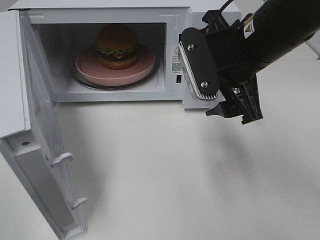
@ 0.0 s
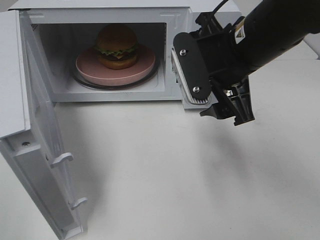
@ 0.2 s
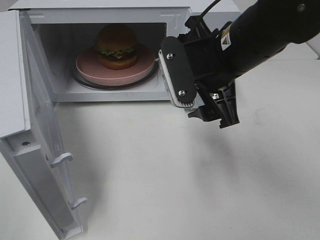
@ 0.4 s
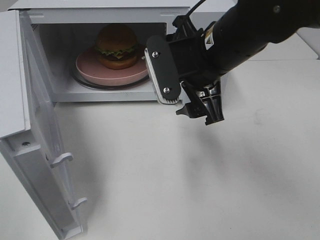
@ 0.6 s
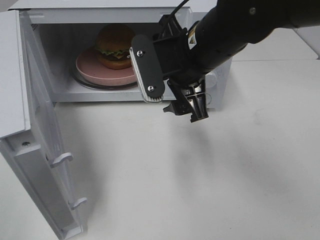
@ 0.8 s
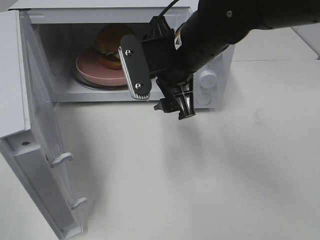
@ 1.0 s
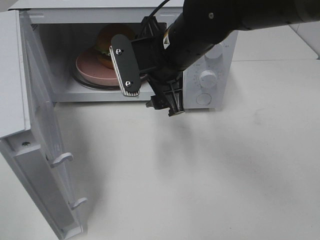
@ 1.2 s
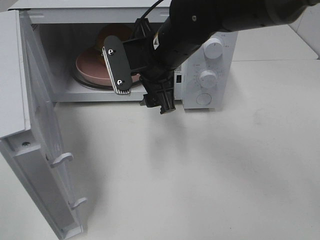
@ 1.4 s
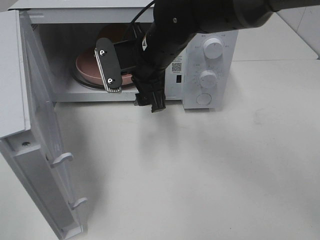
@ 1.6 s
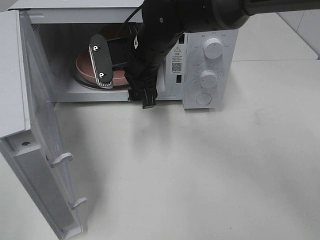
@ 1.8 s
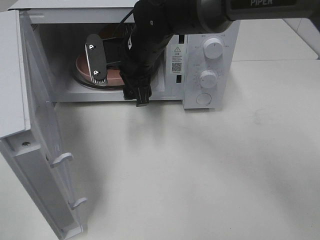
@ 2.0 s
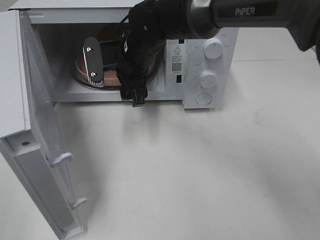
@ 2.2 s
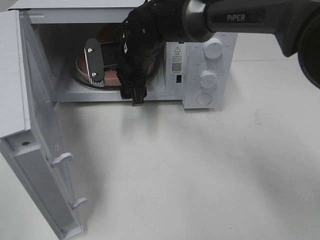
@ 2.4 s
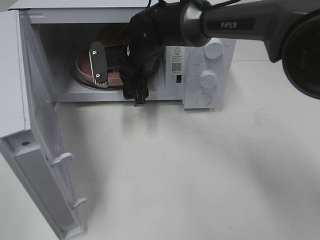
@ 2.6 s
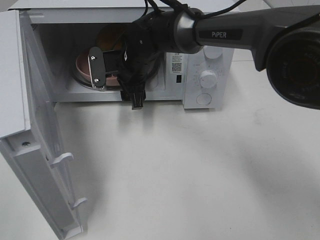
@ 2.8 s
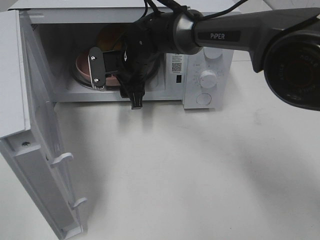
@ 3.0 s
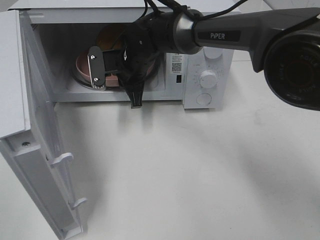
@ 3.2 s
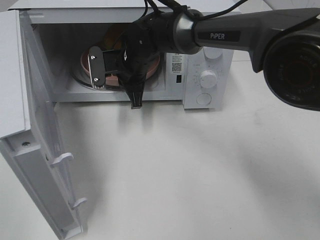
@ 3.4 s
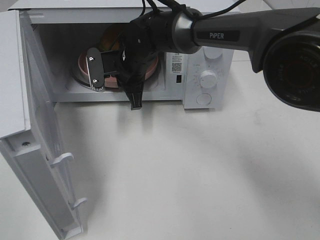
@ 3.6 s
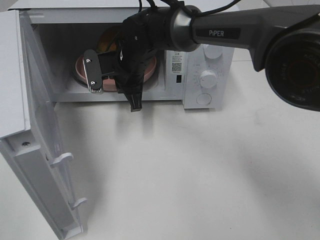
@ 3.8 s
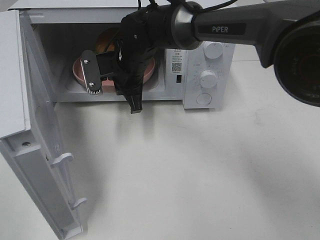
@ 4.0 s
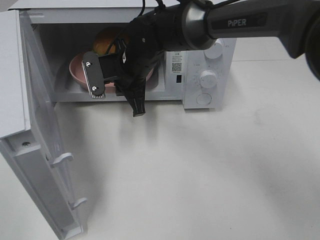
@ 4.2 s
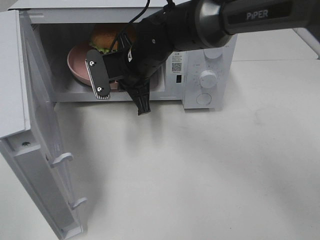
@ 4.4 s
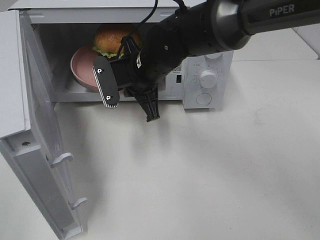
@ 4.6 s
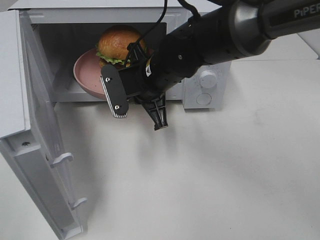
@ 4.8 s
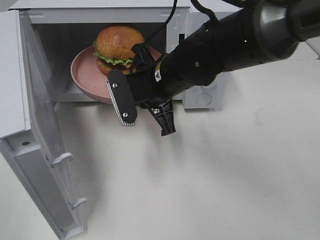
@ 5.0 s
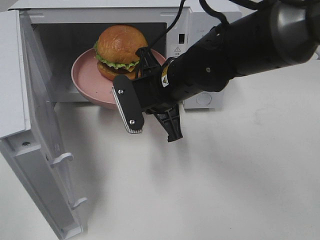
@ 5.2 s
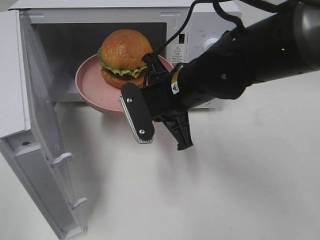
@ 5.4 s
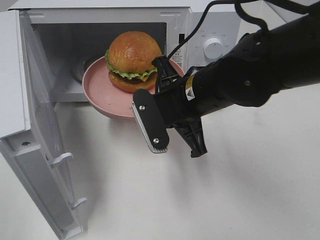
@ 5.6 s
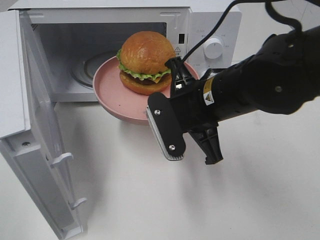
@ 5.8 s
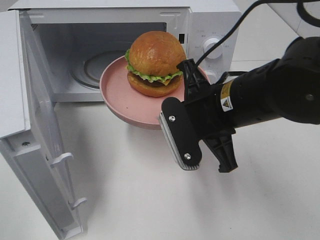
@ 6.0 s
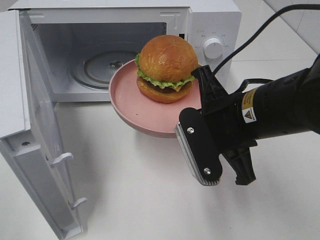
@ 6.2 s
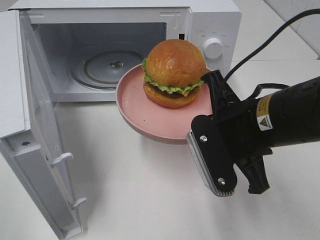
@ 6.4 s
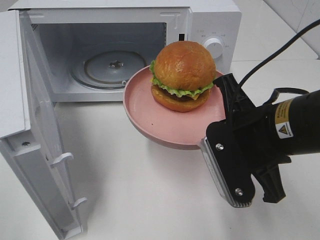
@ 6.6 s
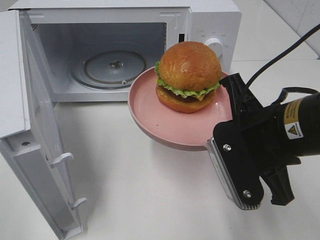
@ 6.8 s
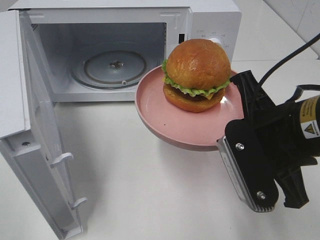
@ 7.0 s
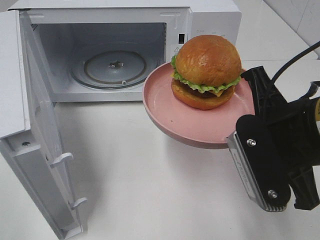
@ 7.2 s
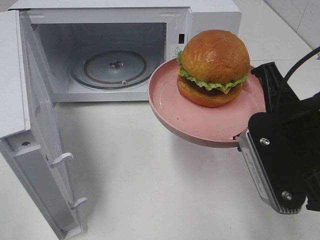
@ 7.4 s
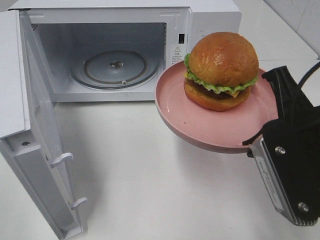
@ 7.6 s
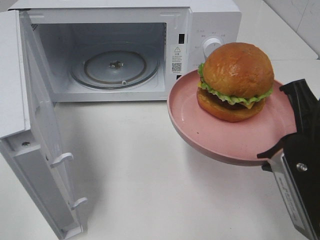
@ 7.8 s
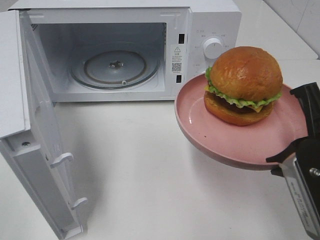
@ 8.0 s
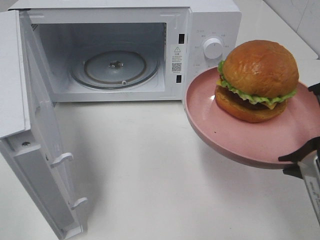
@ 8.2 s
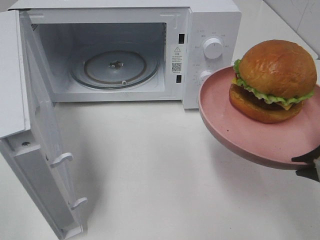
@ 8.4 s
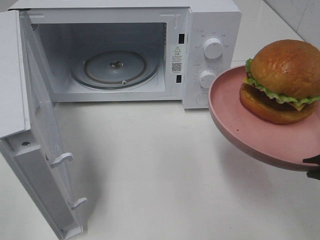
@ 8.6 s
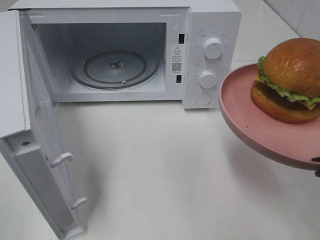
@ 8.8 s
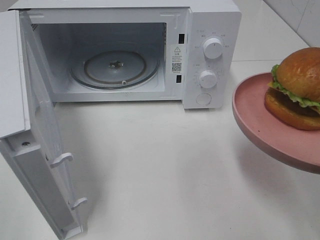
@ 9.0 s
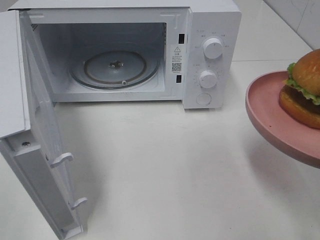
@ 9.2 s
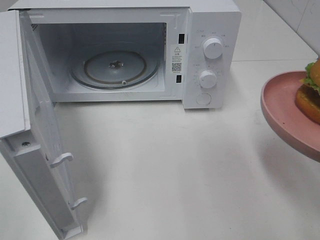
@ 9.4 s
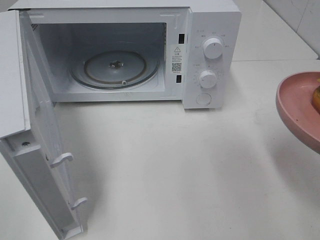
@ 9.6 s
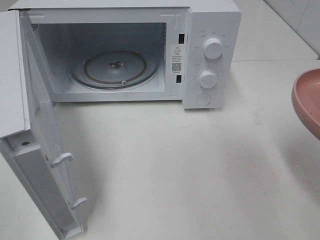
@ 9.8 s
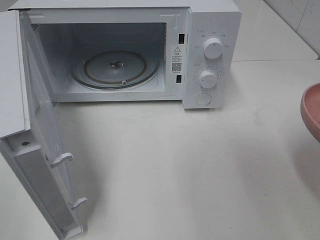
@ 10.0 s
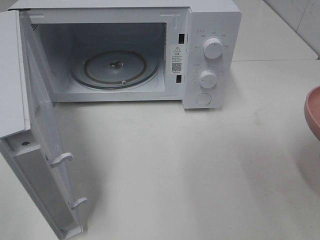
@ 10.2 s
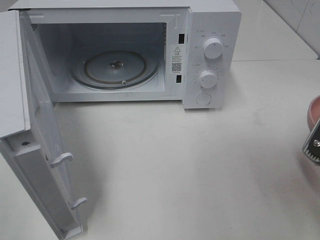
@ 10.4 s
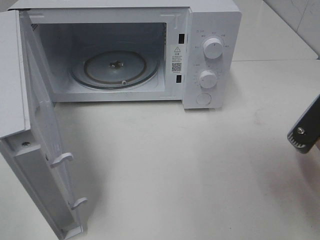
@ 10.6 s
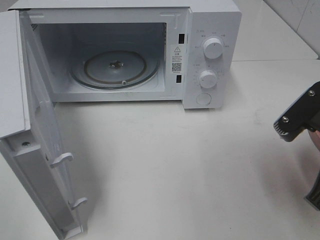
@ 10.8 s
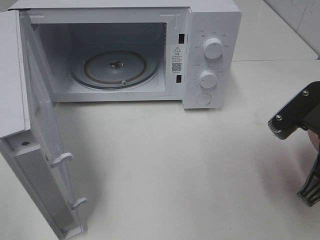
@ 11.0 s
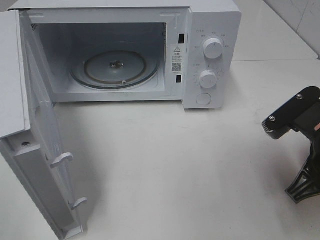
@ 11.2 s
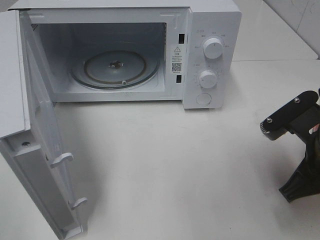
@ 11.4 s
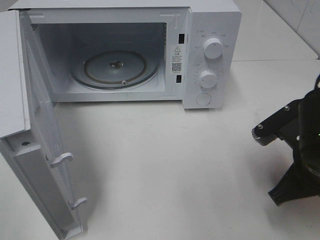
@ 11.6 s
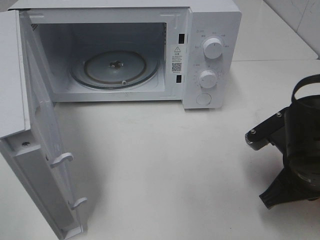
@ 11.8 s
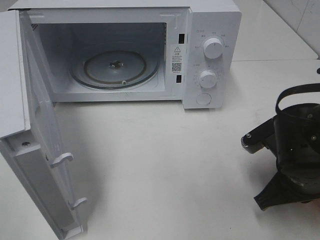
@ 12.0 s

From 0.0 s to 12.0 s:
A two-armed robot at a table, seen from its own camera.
Task of the whole recording: Heat the burger.
Step, from 0.0 s to 3.2 s: Right hand: grab the plate with the hamburger.
From 0.0 s to 1.6 s: The right gripper travels to the left, forward and downward by some 15 cm.
From 1.6 s to 3.0 s: The right gripper moves forward and downward, some 10 cm.
From 3.0 s to 4.4 s: The right gripper shifts roughly 5 cm backward, and closes.
From 4.4 s to 6.0 s: The right gripper heads backward and to the right, covering roughly 20 cm.
From 6.0 s to 7.6 s: The right gripper travels backward and to the right by about 10 cm.
From 7.6 s to 9.0 s: The right gripper goes roughly 5 cm to the right.
From 10.4 s to 12.0 s: The right gripper goes roughly 10 cm downward and forward.

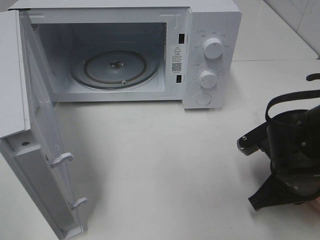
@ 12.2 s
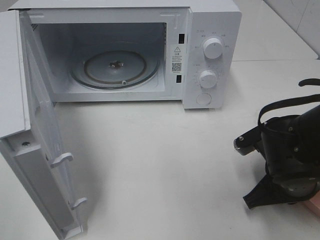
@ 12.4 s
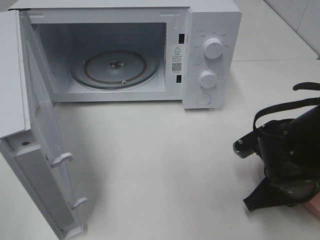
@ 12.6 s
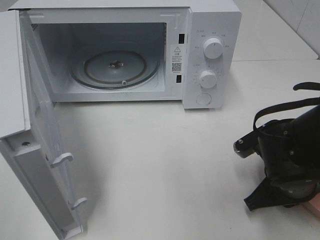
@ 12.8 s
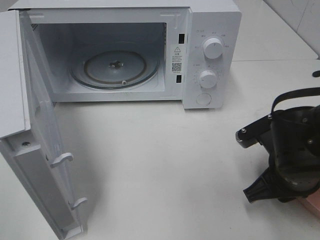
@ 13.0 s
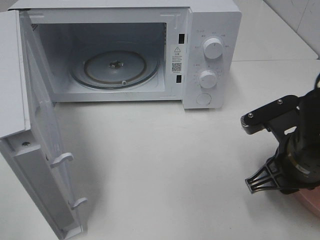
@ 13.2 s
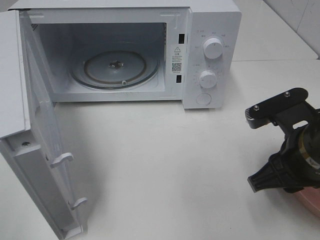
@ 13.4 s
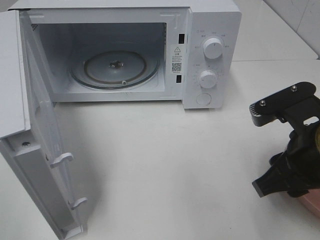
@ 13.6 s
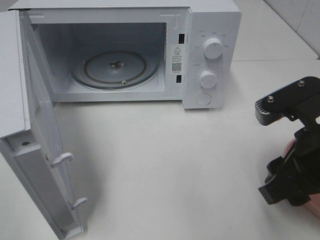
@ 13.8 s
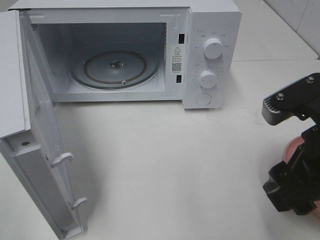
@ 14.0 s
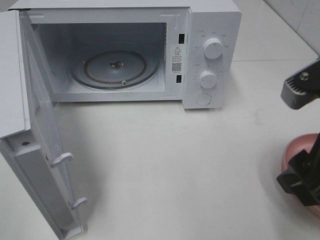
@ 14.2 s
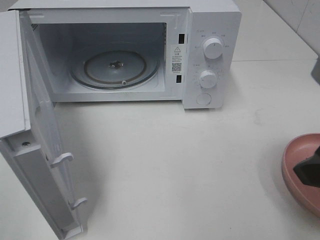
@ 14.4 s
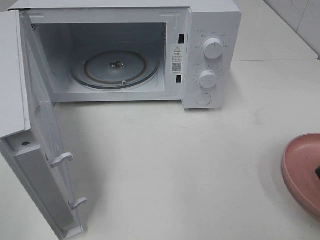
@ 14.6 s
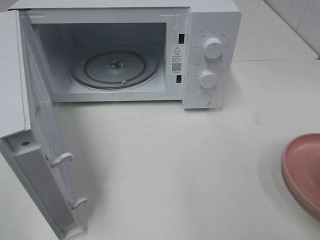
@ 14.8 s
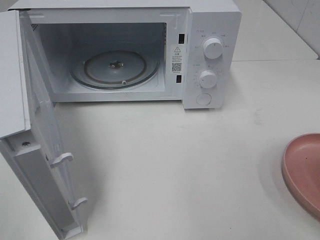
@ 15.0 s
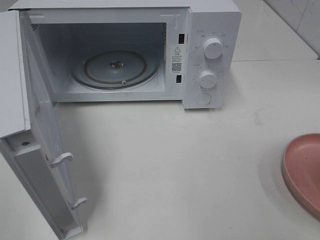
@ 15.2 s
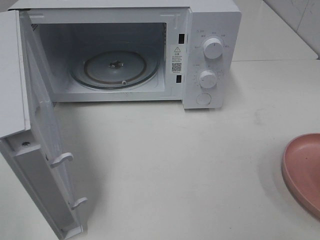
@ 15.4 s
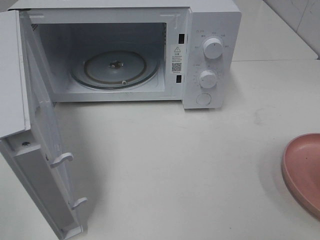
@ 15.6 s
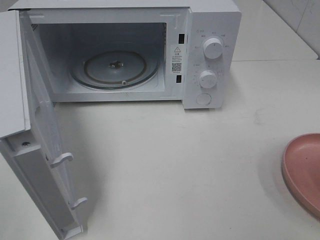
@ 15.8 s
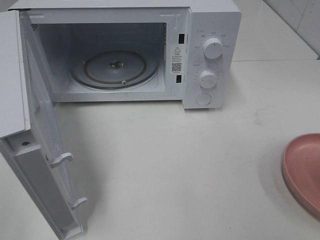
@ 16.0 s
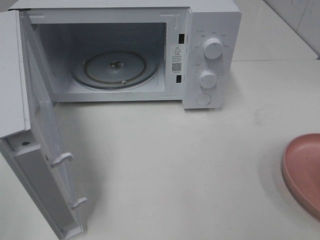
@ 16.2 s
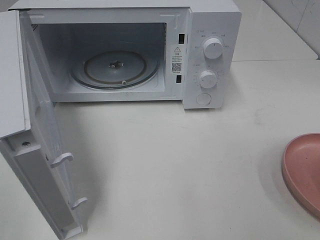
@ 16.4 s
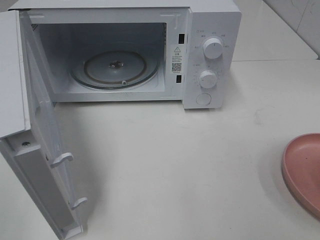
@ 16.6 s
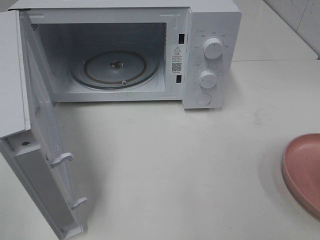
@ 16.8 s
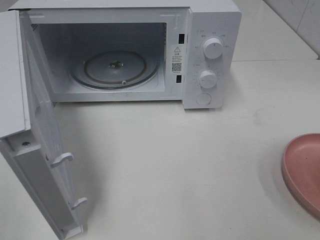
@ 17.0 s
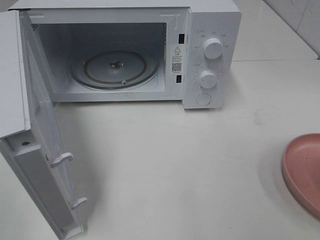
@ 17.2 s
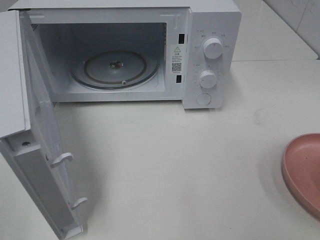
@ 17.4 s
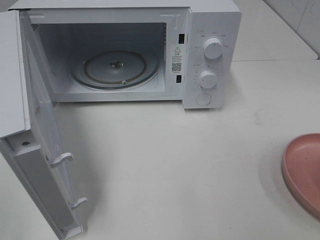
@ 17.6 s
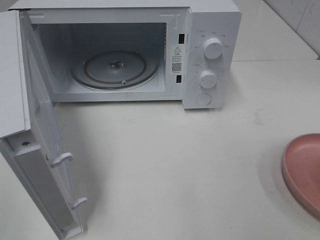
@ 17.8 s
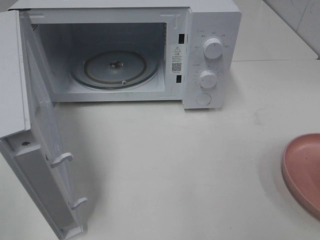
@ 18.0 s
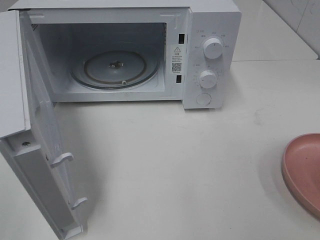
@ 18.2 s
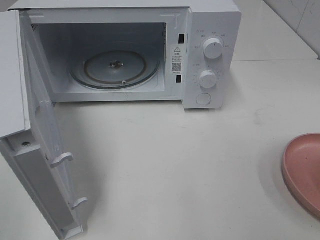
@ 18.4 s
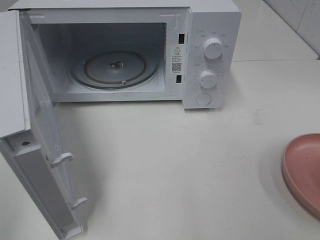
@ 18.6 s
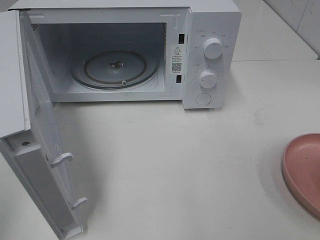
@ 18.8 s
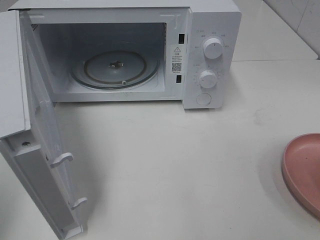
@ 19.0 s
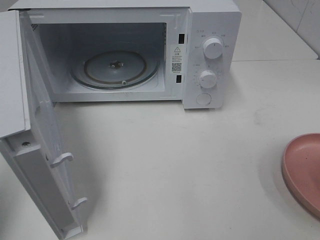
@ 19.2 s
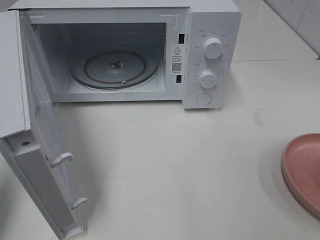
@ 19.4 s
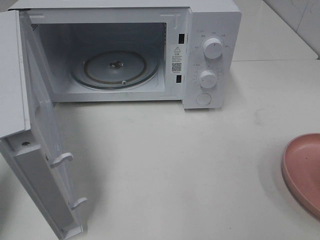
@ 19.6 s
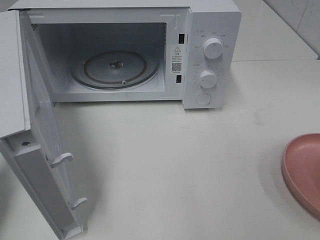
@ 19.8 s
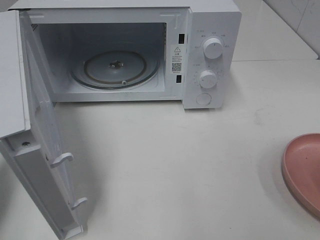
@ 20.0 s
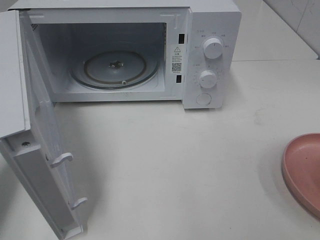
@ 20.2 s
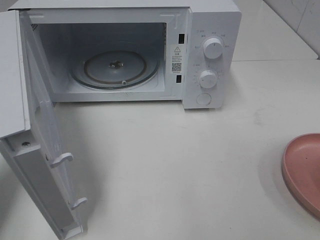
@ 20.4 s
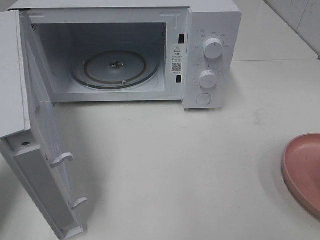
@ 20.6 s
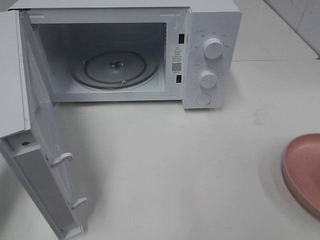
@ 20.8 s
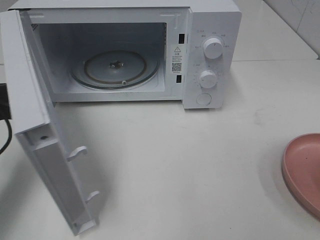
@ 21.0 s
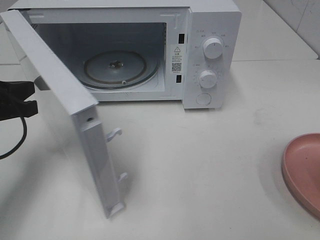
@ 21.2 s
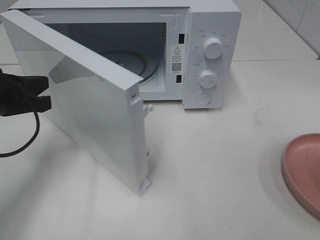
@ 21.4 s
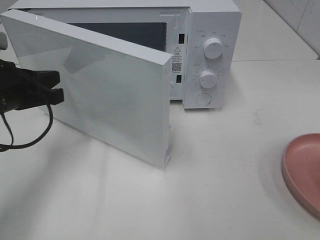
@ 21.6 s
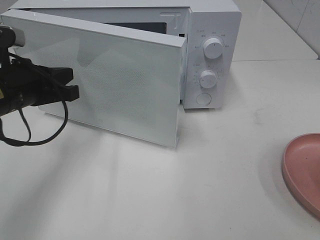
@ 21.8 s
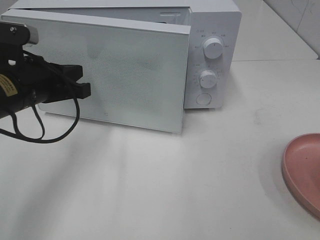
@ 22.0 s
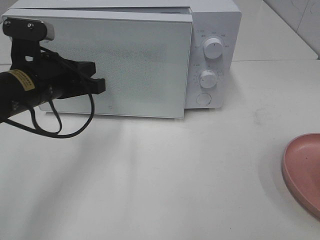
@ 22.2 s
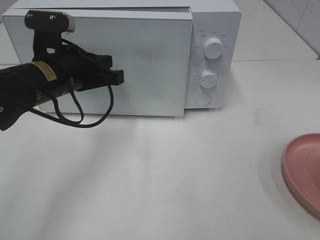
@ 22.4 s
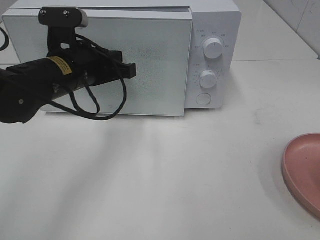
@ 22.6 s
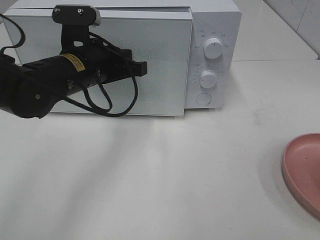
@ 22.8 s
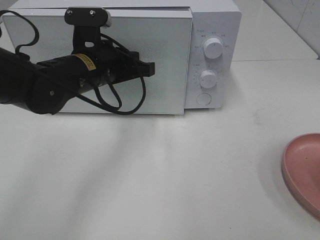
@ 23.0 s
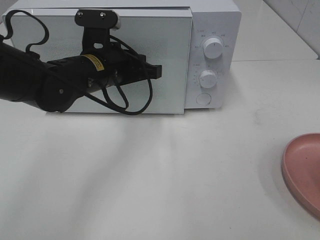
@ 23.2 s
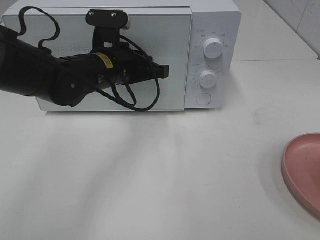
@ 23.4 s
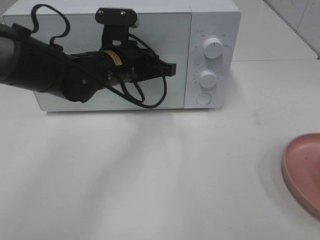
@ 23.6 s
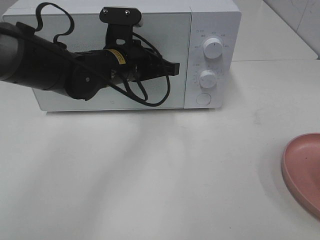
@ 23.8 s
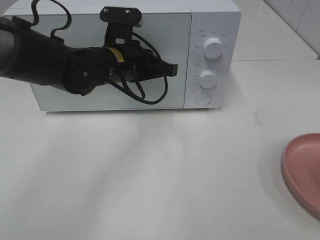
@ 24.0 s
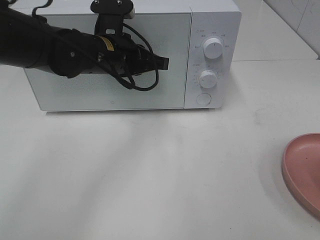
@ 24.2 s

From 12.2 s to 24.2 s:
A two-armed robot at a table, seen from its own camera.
Task of the whole recording: Heat the burger.
Step, from 13.0 s to 24.2 s: Left hand: close the microwave door.
From 12.2 s to 13.8 s: The right gripper is displaced upward by some 10 cm, and opens.
From 13.8 s to 15.2 s: The right gripper heads backward, upward and to the right, covering roughly 15 cm.
From 16.6 s to 18.2 s: Neither gripper changes place.
From 18.2 s to 19.8 s: The left gripper shifts approximately 15 cm forward, and closes.
From 19.8 s to 21.2 s: The left gripper shifts roughly 15 cm forward, downward and to the right.
From 21.2 s to 22.6 s: The left gripper shifts roughly 15 cm to the right and forward.
From 22.6 s to 24.2 s: The left gripper moves to the right, approximately 5 cm.
